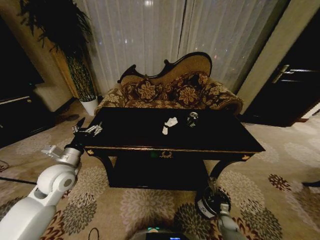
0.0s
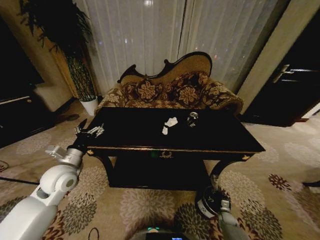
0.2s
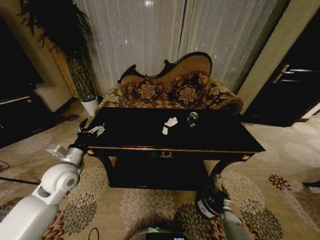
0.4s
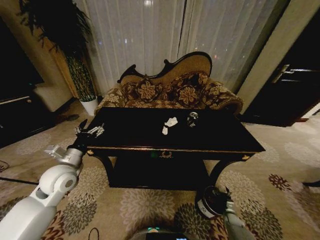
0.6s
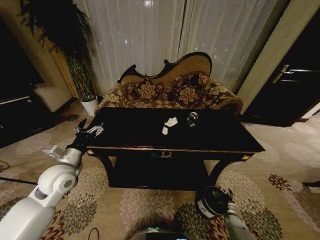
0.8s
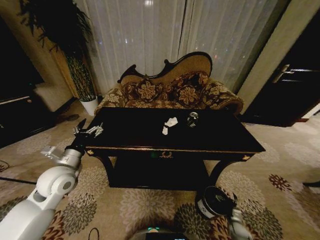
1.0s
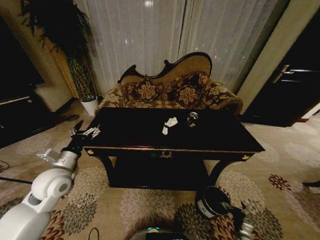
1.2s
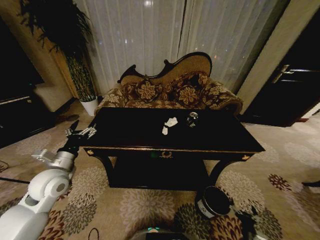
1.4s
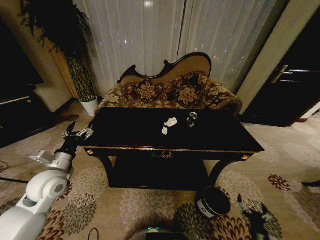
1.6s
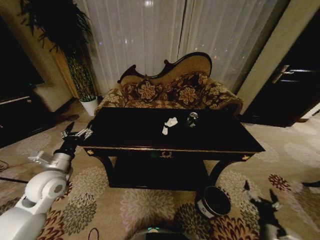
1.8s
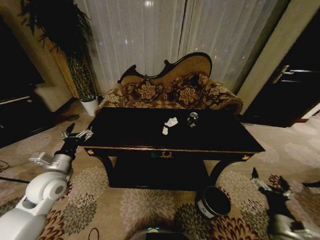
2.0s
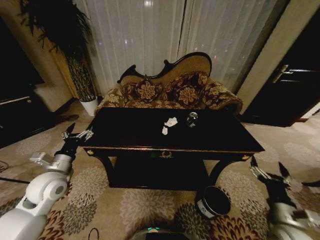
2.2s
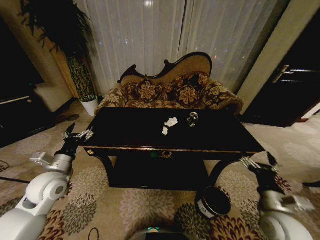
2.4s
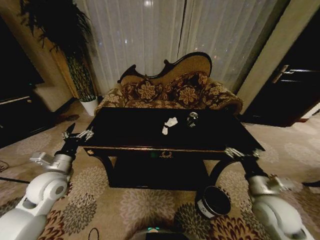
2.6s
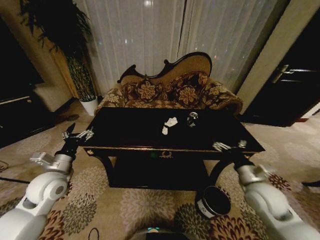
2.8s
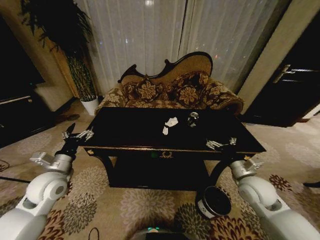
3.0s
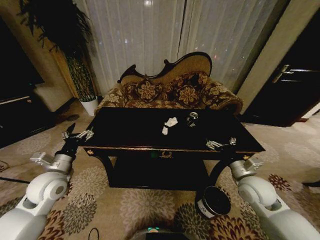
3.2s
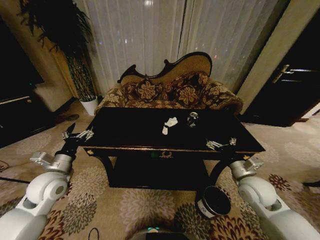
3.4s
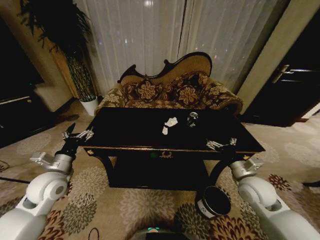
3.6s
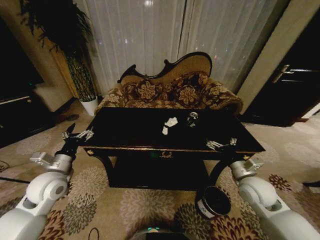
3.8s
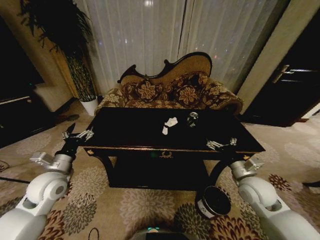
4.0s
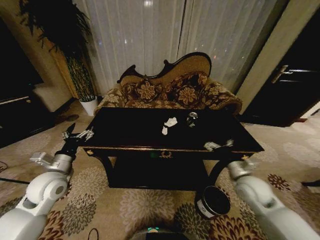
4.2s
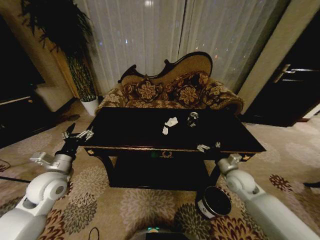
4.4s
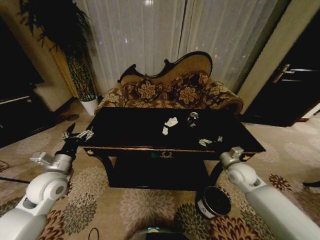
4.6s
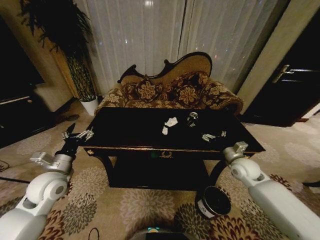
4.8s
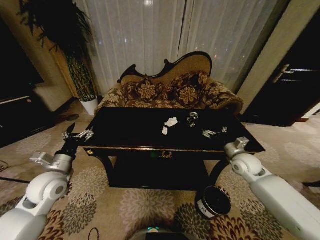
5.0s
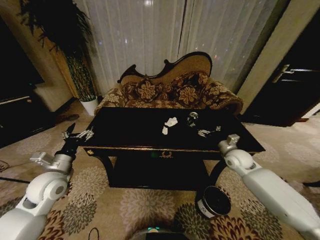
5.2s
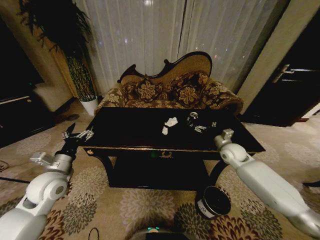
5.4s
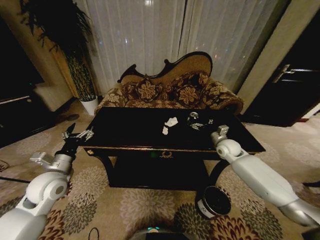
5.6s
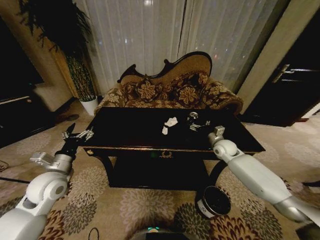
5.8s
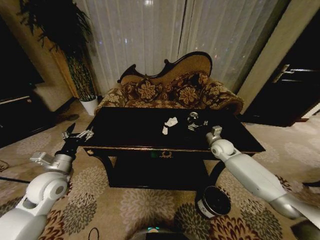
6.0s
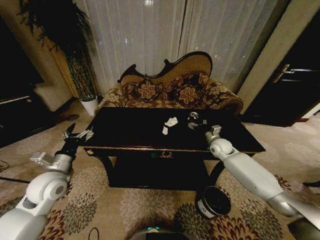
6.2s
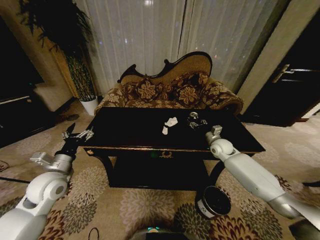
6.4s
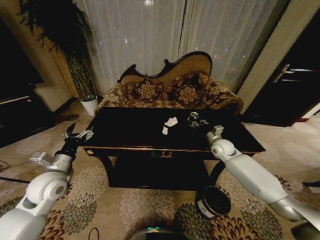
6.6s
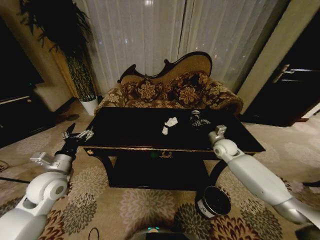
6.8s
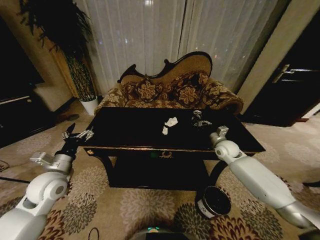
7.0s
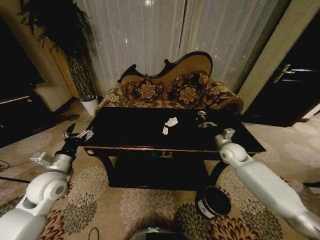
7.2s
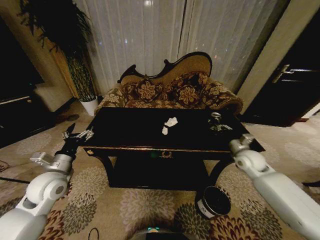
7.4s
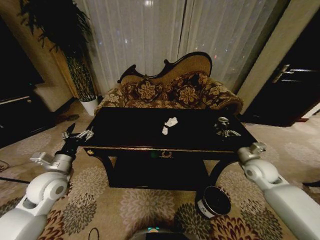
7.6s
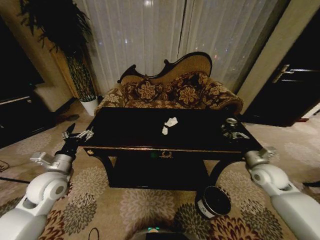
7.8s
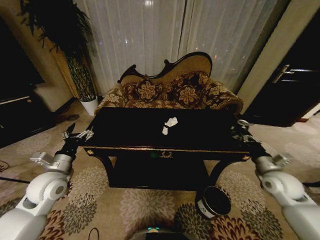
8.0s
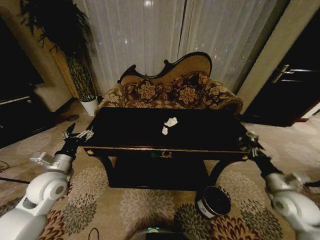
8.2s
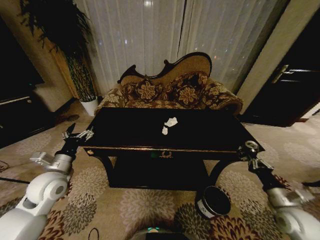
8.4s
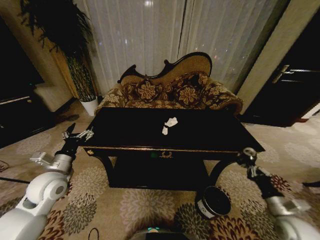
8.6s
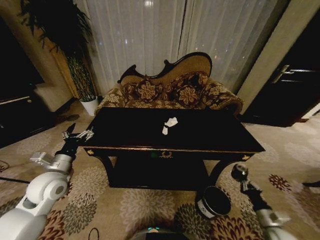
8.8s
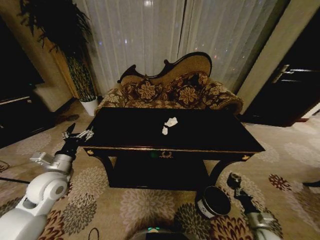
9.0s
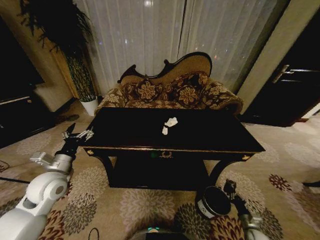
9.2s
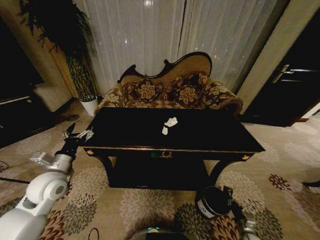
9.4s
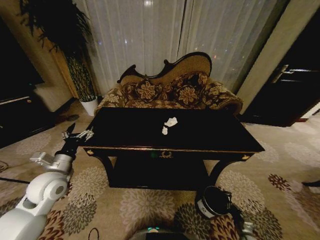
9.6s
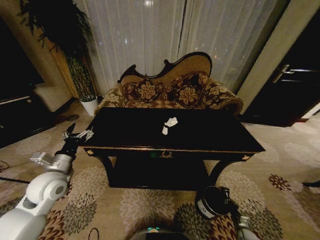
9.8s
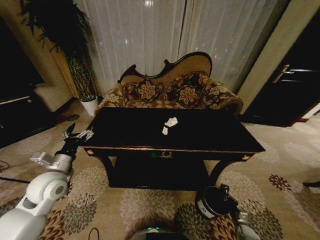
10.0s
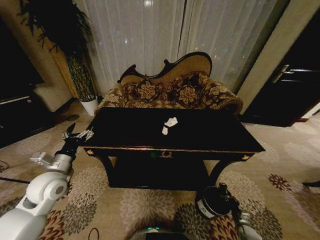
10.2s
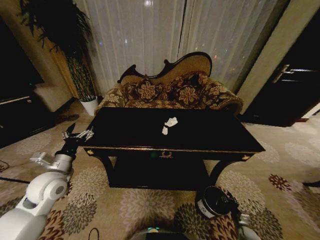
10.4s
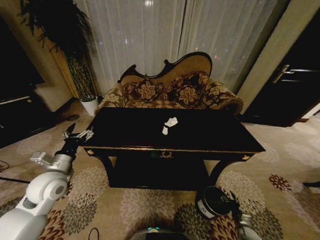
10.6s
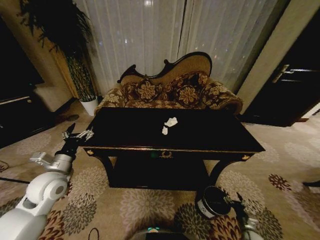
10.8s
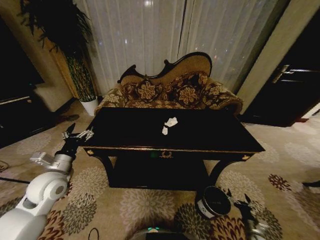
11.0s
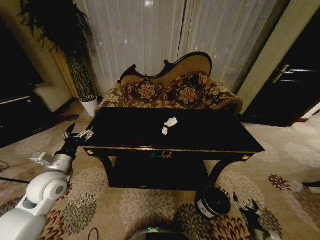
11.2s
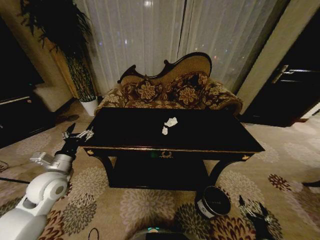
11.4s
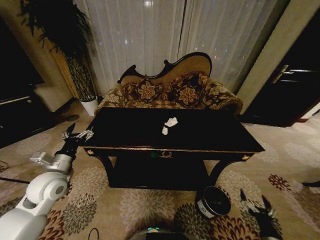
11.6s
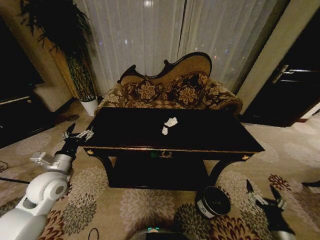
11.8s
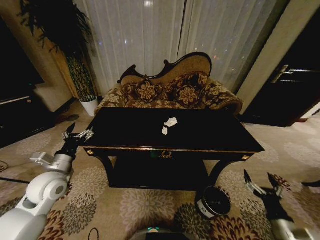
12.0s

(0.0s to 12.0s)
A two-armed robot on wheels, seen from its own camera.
Task of the whole recording: Move to the front of the table and place the trash on the table into the trash bin.
0.0s - 1.6s: The right gripper heads backward and upward, covering roughly 20 cm, and opens.
1.6s - 3.0s: The right gripper moves upward and forward, roughly 30 cm.
3.0s - 4.4s: The right gripper goes some 10 cm downward and forward.
4.4s - 6.0s: The right gripper moves forward, roughly 15 cm.
6.0s - 7.6s: The right gripper moves backward and to the right, some 15 cm, and closes its fingers.
7.6s - 9.0s: The right gripper is displaced downward and backward by roughly 30 cm.
9.0s - 10.4s: The right gripper travels downward by roughly 15 cm.
10.4s - 12.0s: The right gripper shifts approximately 30 cm upward, and opens up.

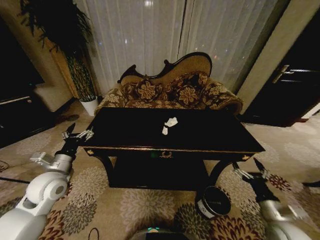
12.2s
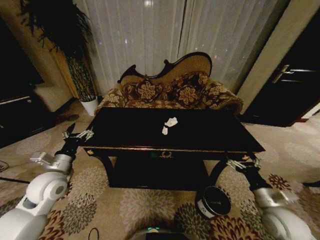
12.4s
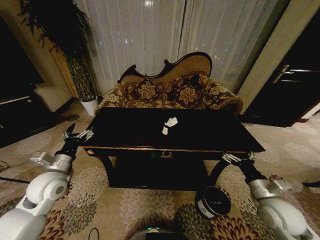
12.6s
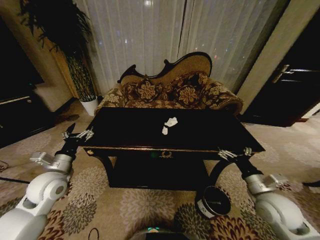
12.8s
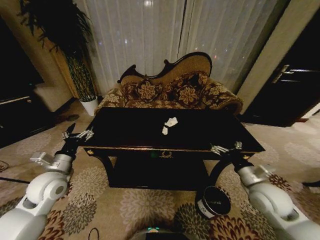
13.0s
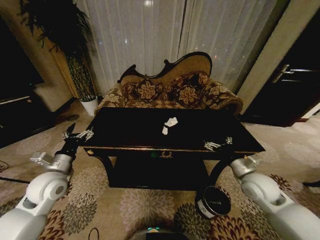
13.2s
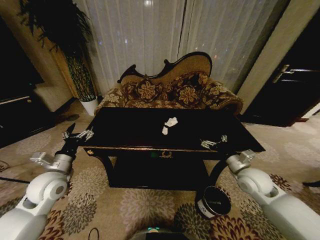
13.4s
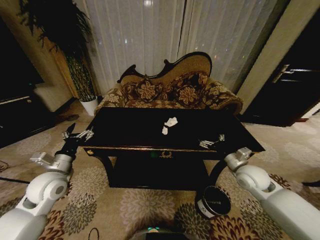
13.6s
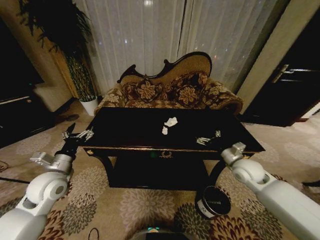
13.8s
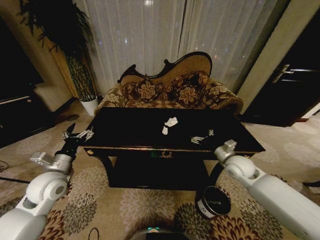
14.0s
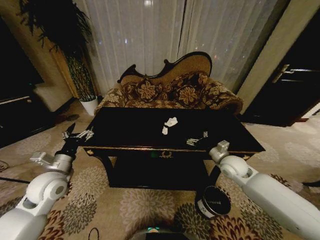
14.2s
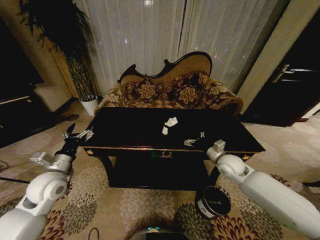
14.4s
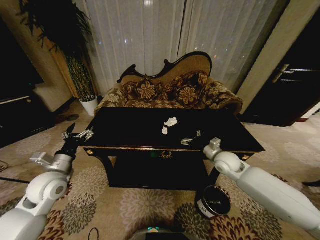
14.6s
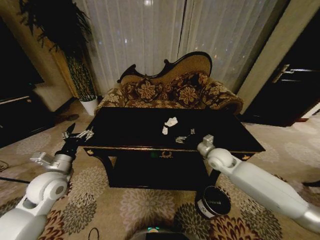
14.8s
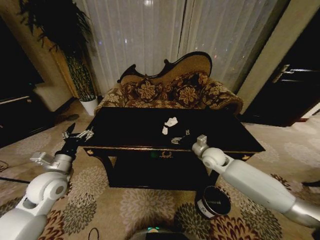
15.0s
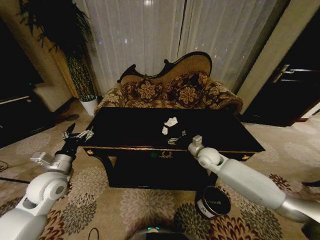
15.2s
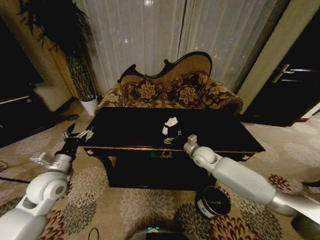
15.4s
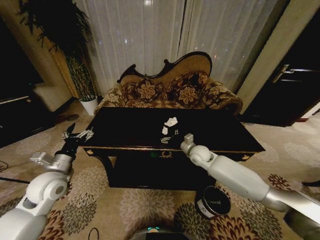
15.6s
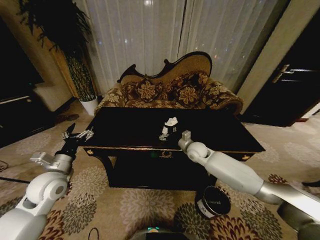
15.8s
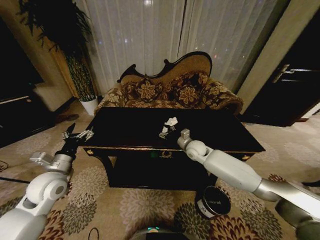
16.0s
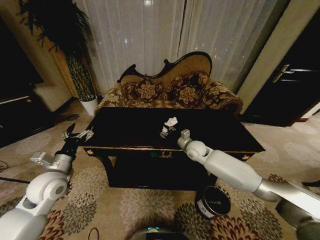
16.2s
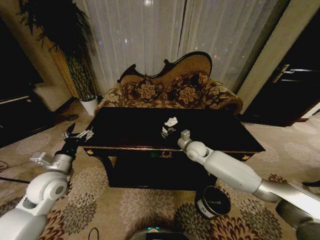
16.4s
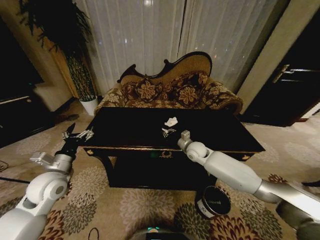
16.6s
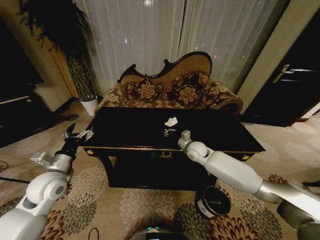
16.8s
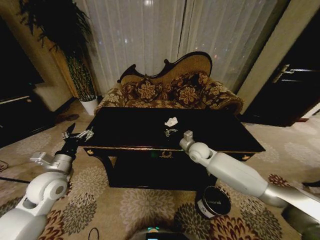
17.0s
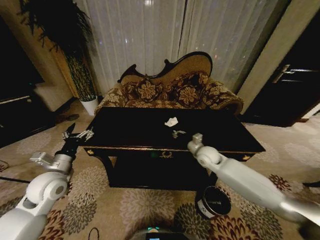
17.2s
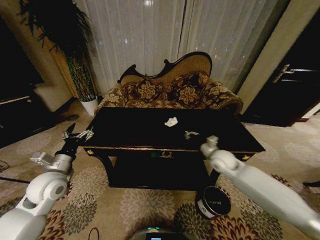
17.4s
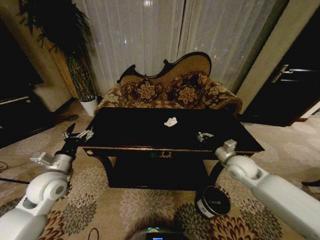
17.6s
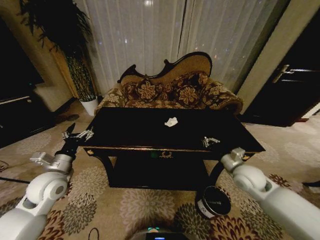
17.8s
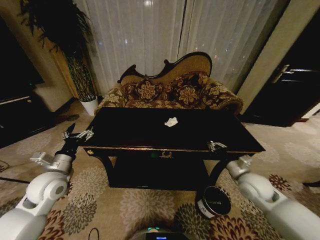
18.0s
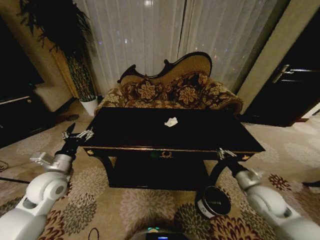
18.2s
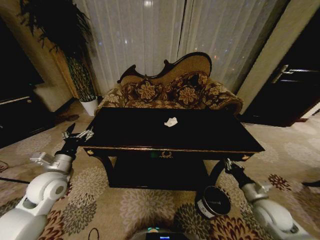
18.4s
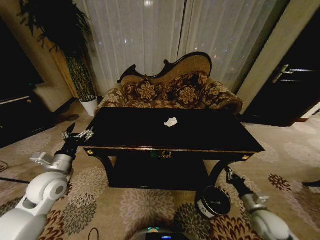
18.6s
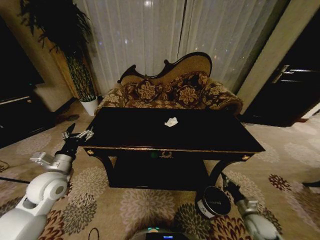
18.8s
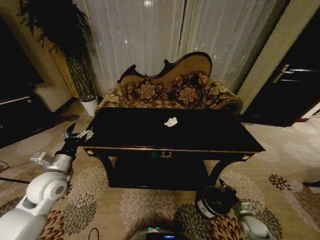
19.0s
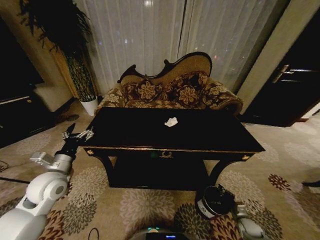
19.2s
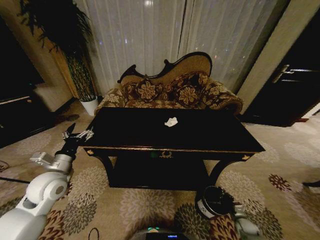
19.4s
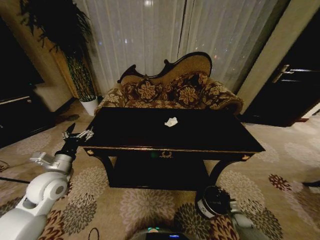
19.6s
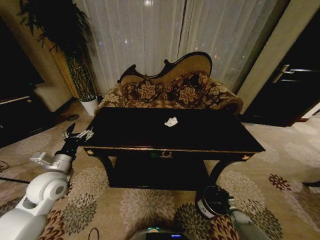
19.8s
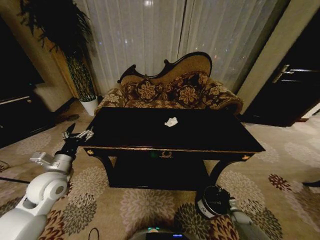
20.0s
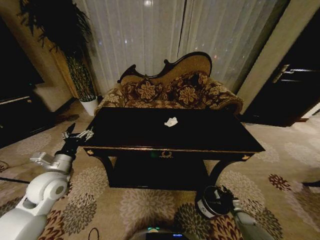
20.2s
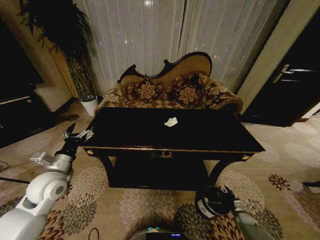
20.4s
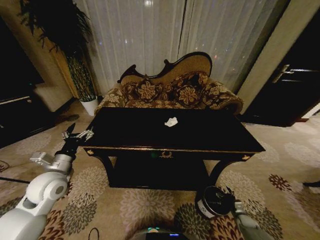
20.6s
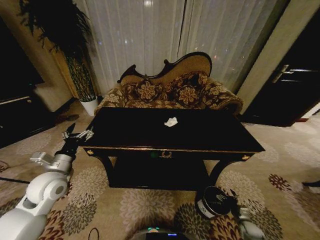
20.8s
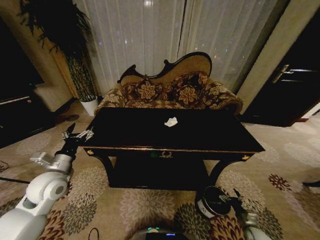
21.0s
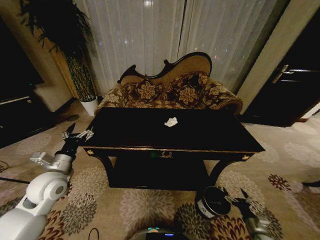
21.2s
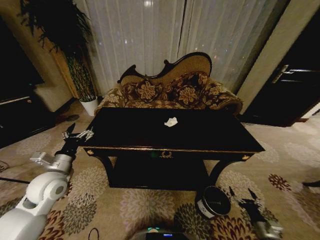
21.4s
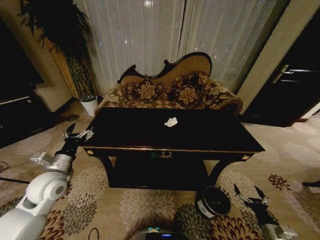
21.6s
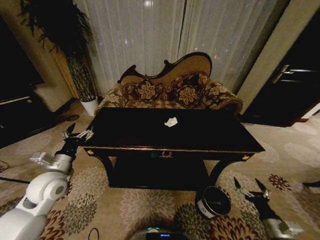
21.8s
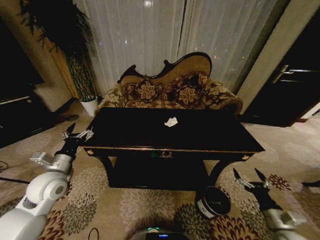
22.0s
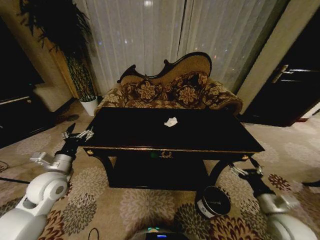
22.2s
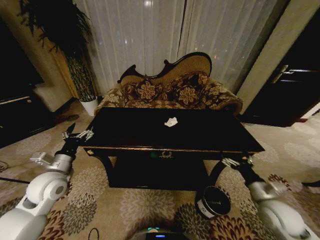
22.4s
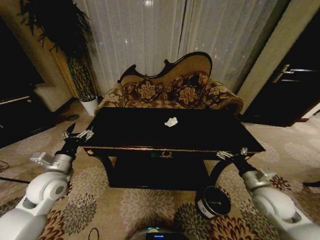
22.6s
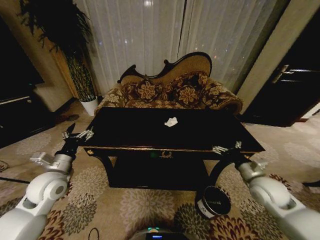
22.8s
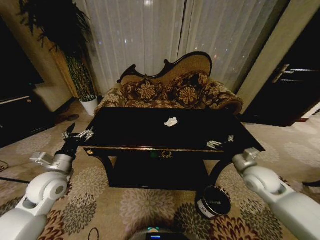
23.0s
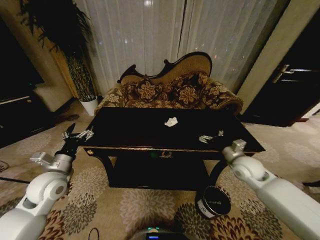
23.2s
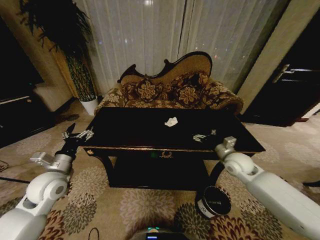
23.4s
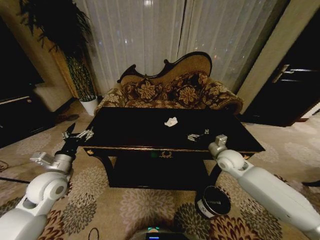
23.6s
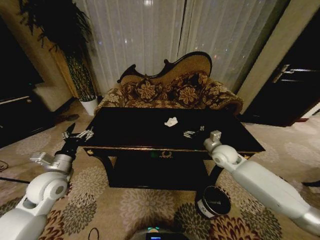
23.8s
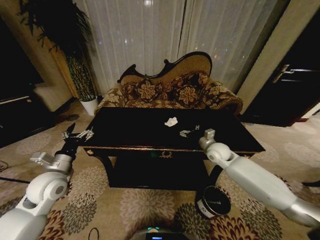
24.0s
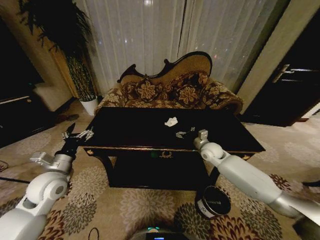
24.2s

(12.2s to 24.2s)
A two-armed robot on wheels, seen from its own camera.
Task of the whole recording: Move to the front of the table and place the trash on the table into the trash bin.
12.2s - 13.8s: The right gripper is displaced forward and upward by approximately 20 cm.
13.8s - 15.2s: The right gripper travels to the left and forward by roughly 15 cm.
15.2s - 16.6s: The right gripper moves about 5 cm, and closes up.
16.6s - 18.2s: The right gripper shifts about 30 cm backward and to the right.
18.2s - 19.8s: The right gripper heads downward, covering some 30 cm.
19.8s - 21.2s: The right gripper shifts some 15 cm backward and upward, and opens.
21.2s - 22.6s: The right gripper shifts roughly 25 cm upward and forward.
22.6s - 24.2s: The right gripper travels forward and to the left by about 25 cm.
